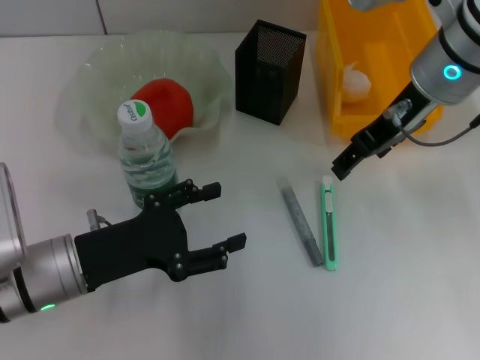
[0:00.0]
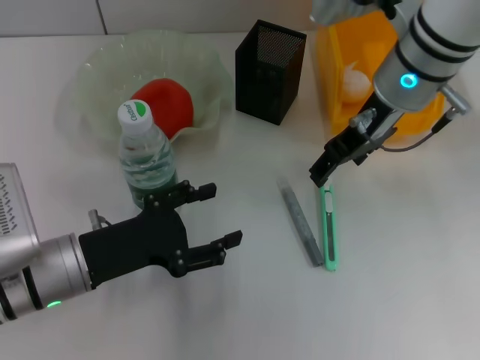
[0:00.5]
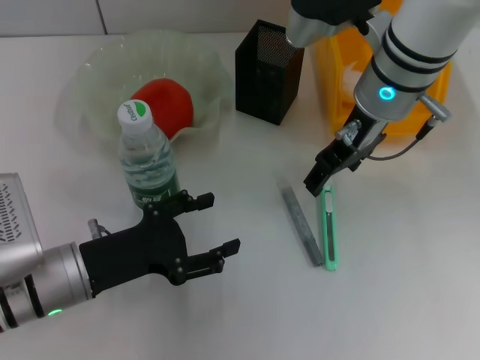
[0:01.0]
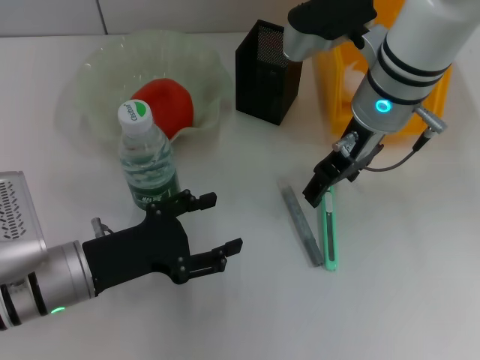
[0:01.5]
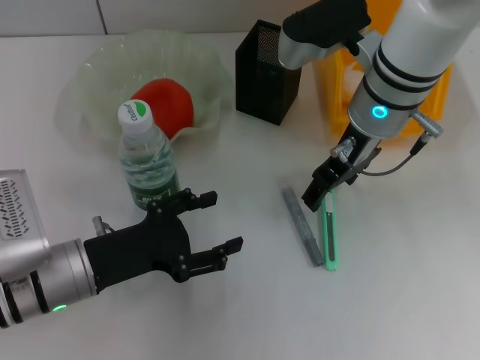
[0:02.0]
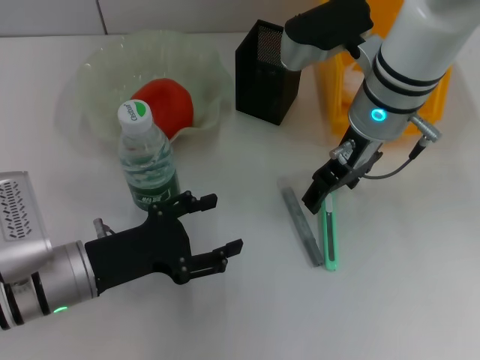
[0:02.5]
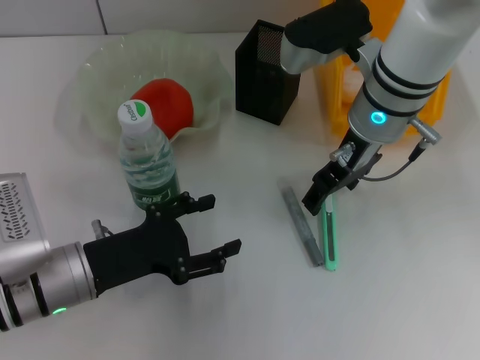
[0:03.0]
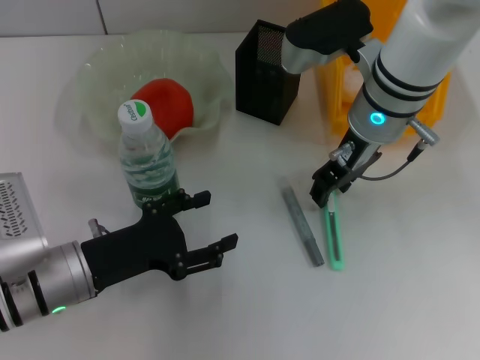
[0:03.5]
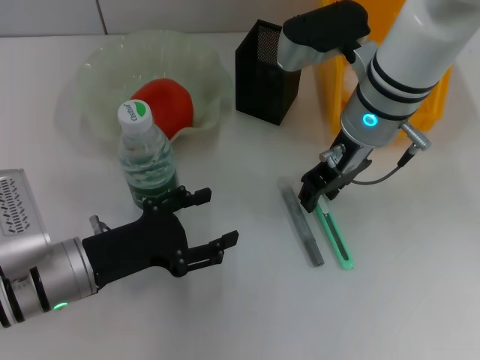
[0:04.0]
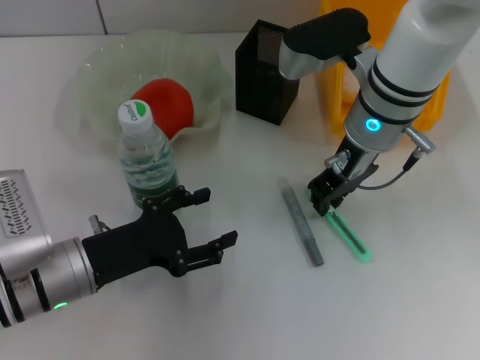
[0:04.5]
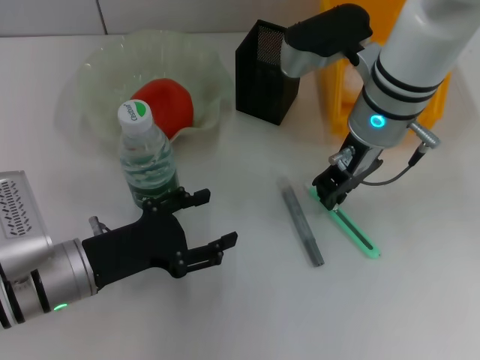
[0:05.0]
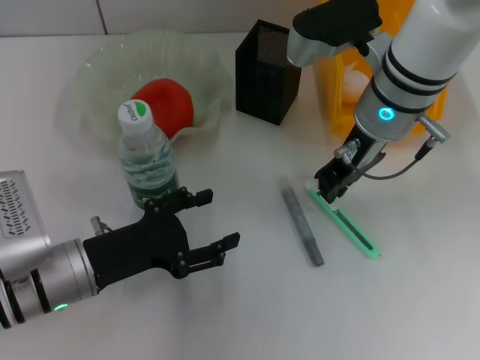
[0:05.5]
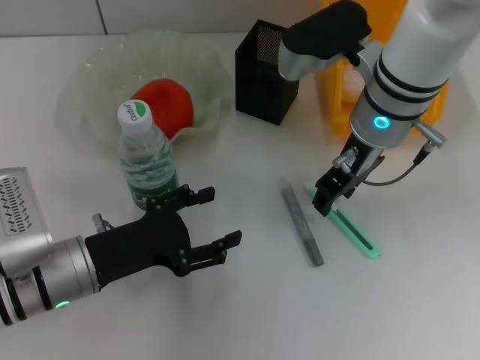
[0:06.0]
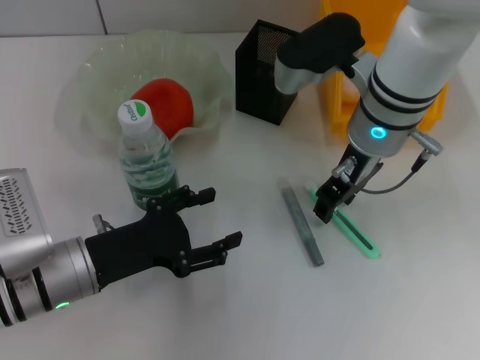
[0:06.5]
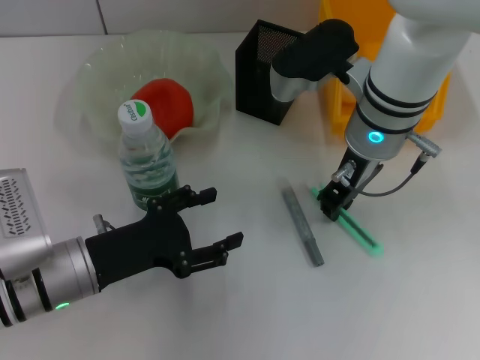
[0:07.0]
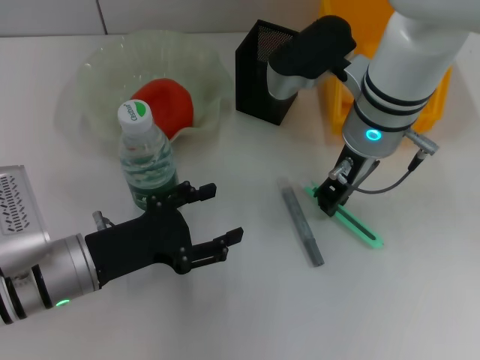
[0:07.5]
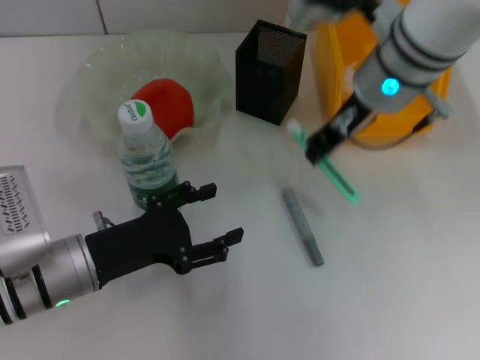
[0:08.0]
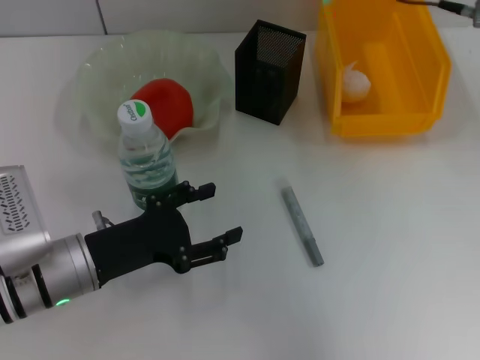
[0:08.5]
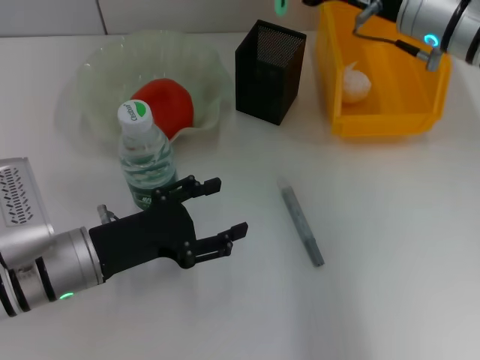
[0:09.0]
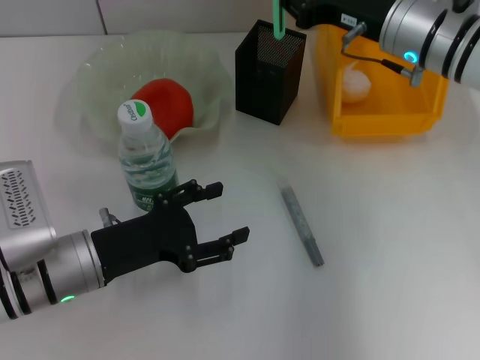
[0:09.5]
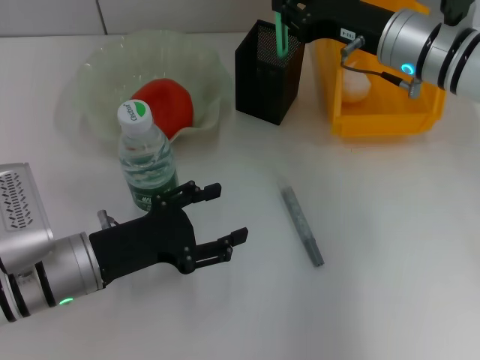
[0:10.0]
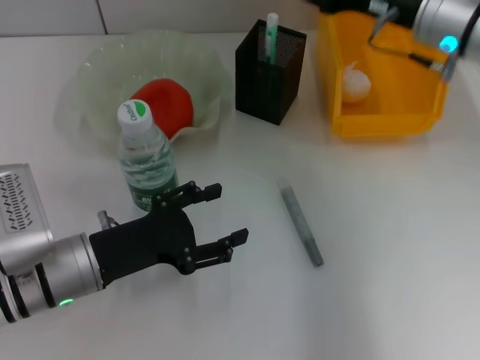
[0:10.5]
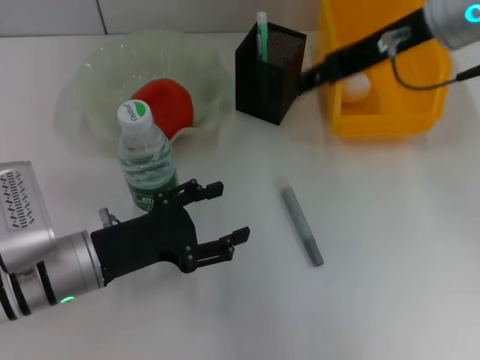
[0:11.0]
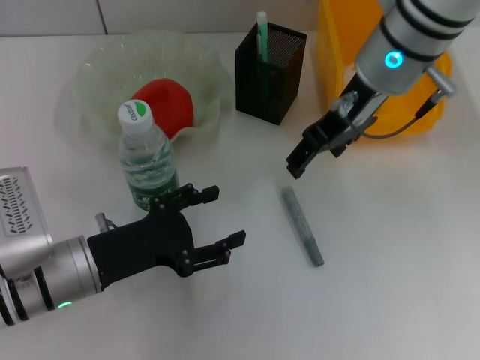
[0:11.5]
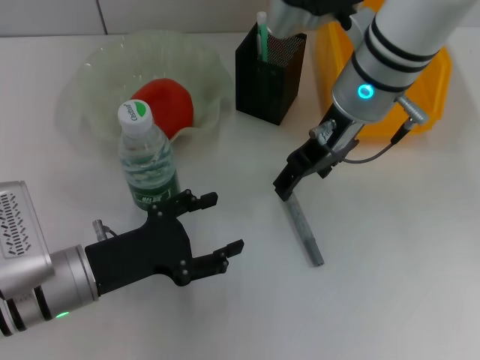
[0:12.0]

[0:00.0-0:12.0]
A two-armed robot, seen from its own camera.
Step, 0:00.0 to 0:07.0: Grab the blue utility knife with the right hand.
Step, 0:07.5 to 0:10.5: Place the blue utility knife into the pen holder with the right hand.
0:00.0 to 0:02.0: The right gripper moves approximately 5 cm.
0:02.0 to 0:04.0: The right gripper closes.
0:04.0 to 0:06.0: The right gripper closes, then reopens.
0:06.0 to 0:08.0: The grippers move only a little.
0:08.0 to 0:10.0: The right gripper is displaced to the right and downward by about 10 cm.
0:10.0 to 0:12.0: The right gripper shifts some 10 cm to the left, and opens its fingers.

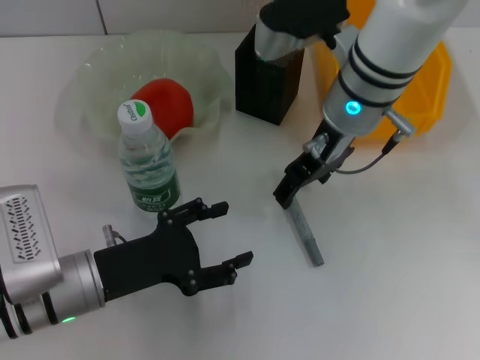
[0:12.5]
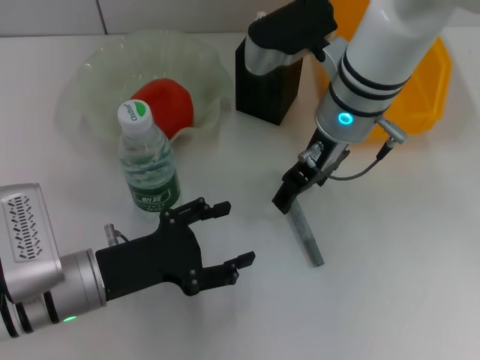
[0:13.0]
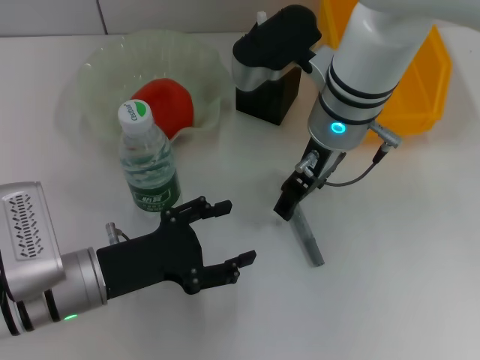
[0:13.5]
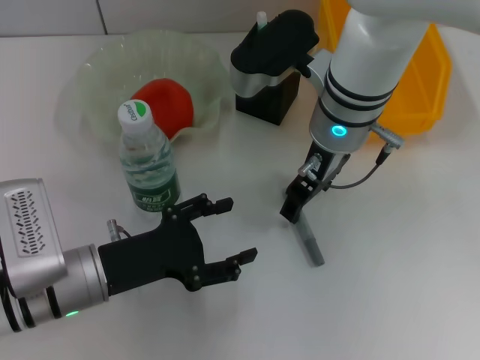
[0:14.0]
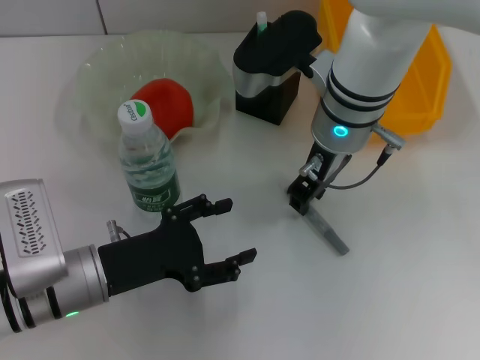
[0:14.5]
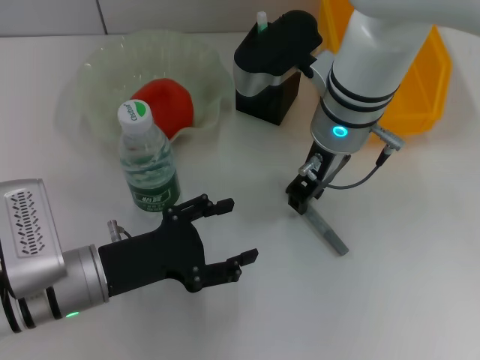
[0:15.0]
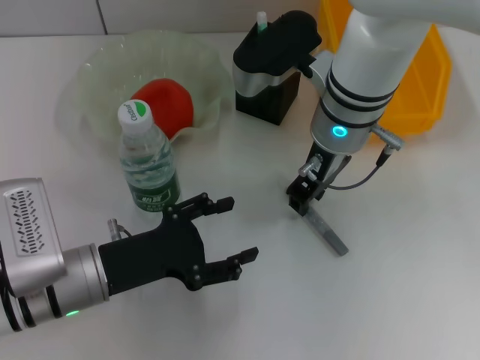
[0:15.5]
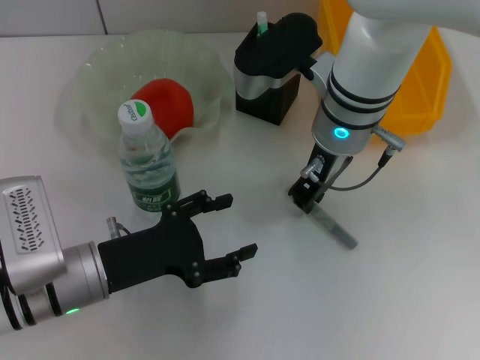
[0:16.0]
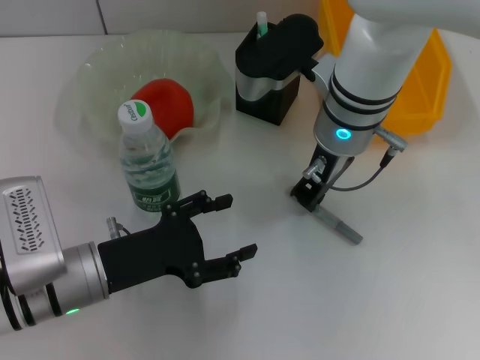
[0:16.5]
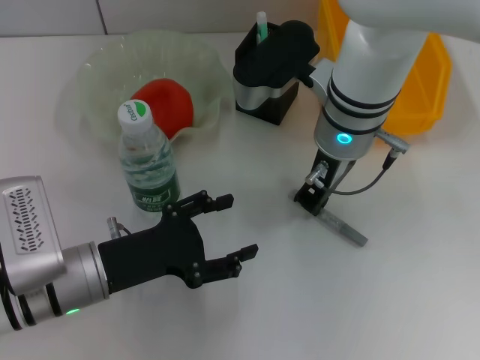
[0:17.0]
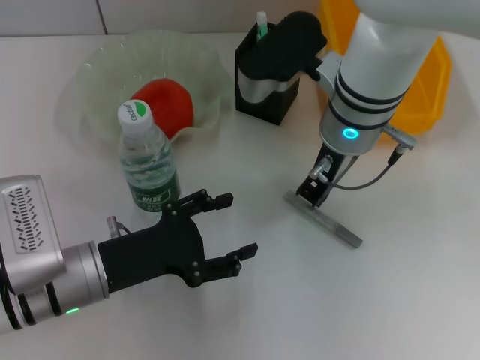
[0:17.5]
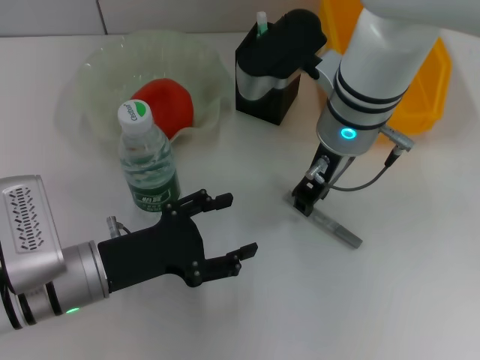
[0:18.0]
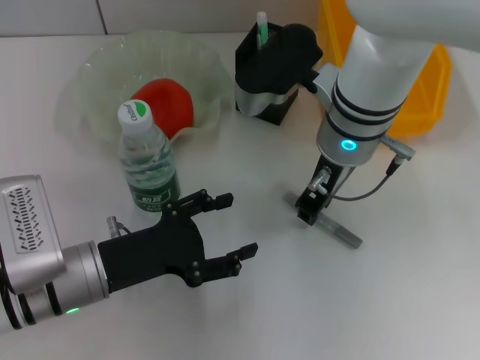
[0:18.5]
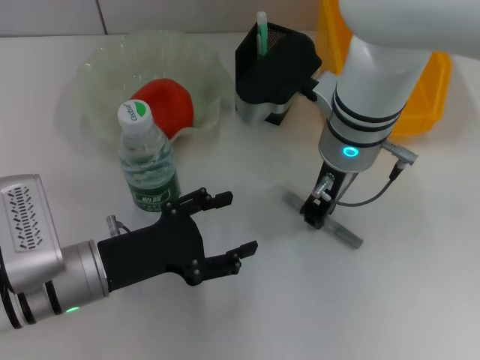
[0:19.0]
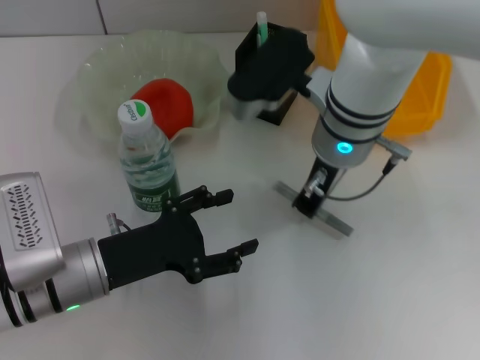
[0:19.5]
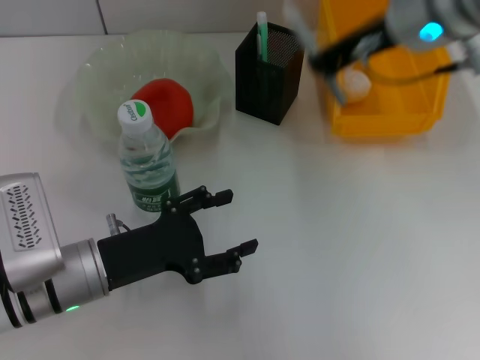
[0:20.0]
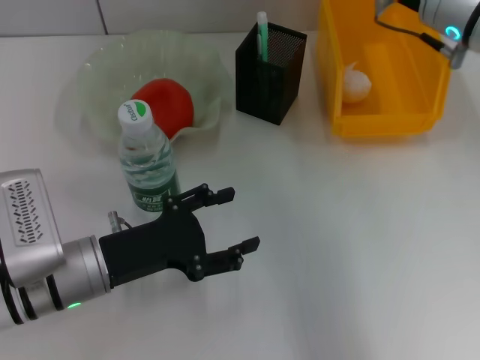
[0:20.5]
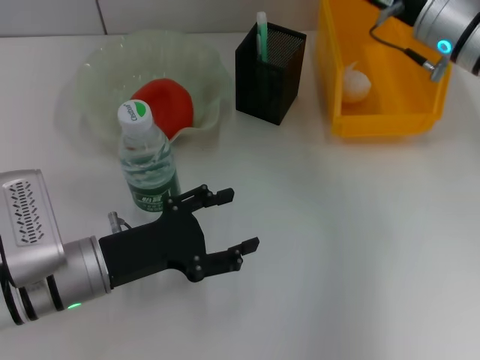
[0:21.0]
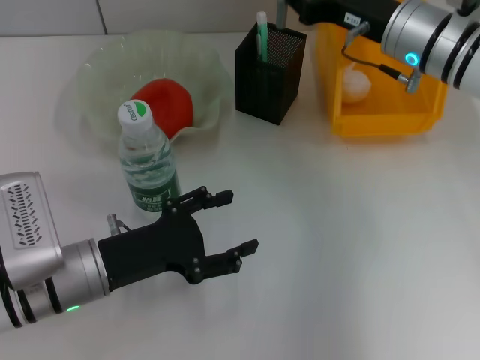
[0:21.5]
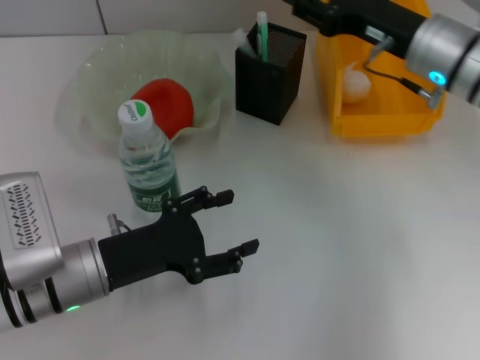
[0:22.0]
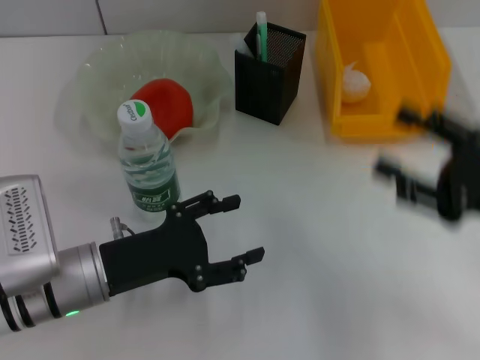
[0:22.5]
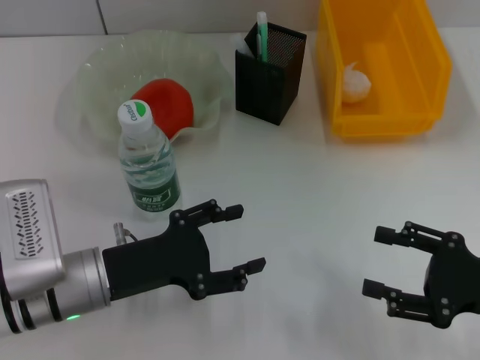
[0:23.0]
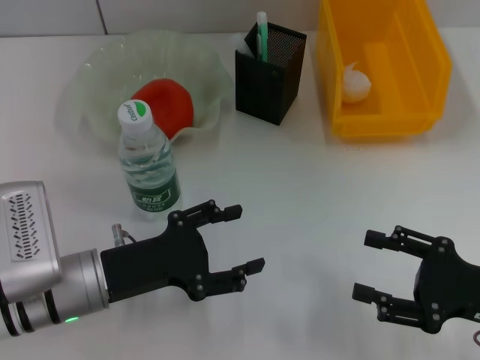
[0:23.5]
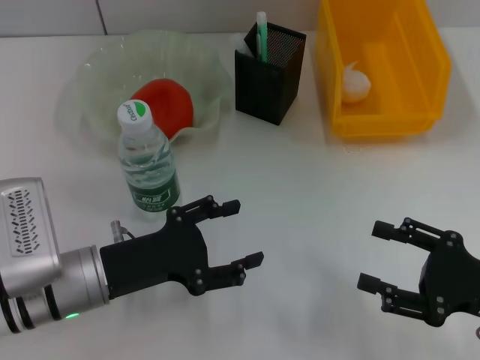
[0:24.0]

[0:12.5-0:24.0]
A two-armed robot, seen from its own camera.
Step, 0:12.5 to 0:17.0: Grab the gray glue with the right hand.
Step, 0:17.5 to 0:21.5: Place the gray glue into the pen holder with the right hand.
0:12.5 to 0:14.5: The right gripper closes its fingers.
0:14.5 to 0:16.5: The right gripper closes its fingers.
0:16.5 to 0:18.5: The two grippers keep their place.
0:18.5 to 0:20.0: The right gripper shifts some 10 cm upward and to the right.
0:20.0 to 0:22.0: The right gripper travels downward and to the right by some 15 cm.
0:22.0 to 0:24.0: The right gripper travels backward, to the right and downward by approximately 25 cm, and opens up.

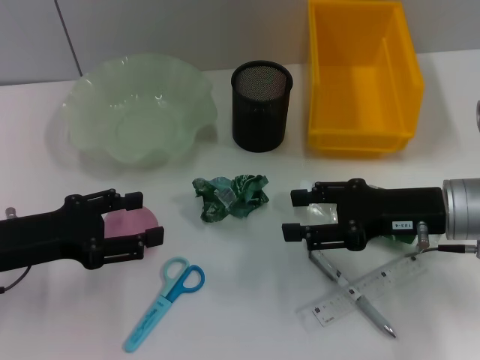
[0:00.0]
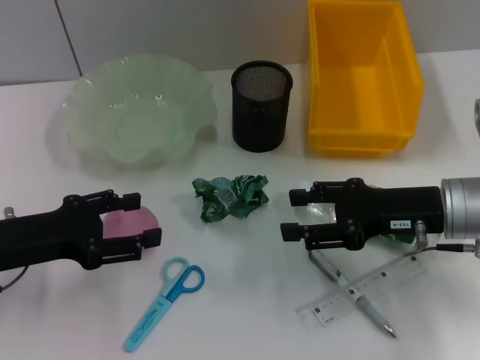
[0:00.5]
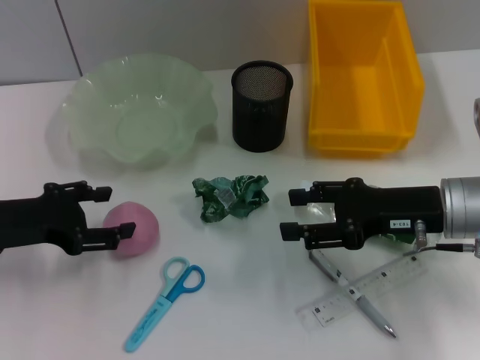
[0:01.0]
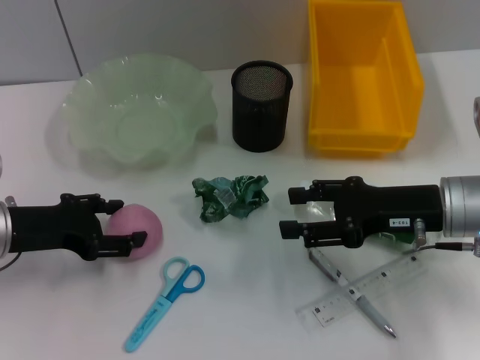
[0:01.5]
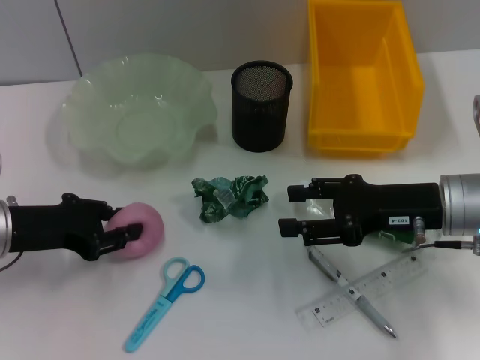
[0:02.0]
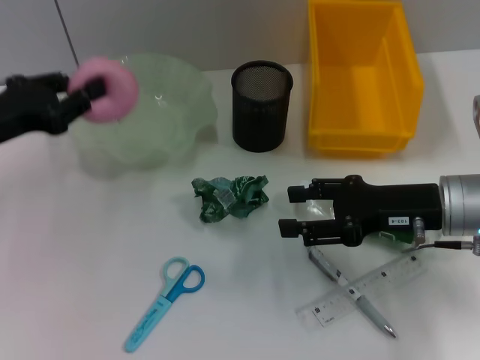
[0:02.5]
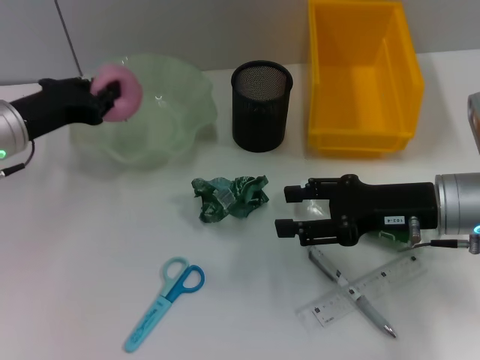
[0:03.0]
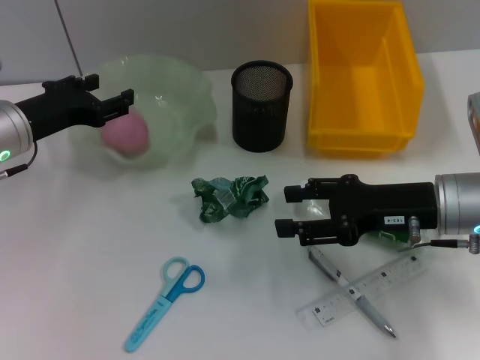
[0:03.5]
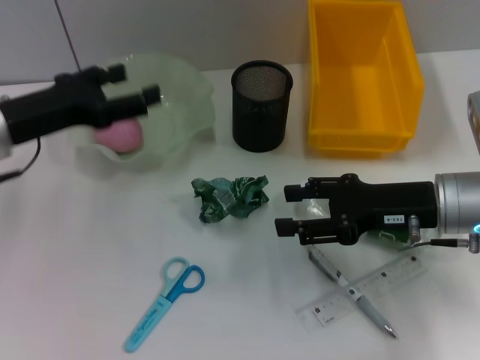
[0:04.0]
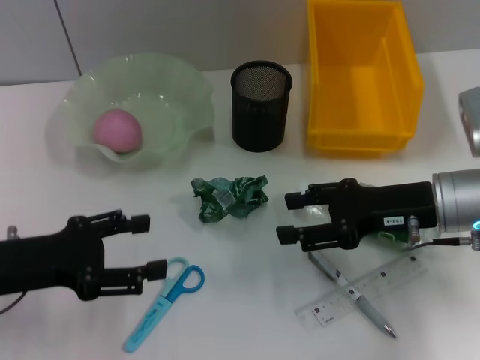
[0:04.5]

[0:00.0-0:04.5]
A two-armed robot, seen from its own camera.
Step, 0:00.0 to 0:01.5: Grab the peach with the left hand.
Step, 0:02.0 to 0:03.5: Place the peach into the fruit bowl with the left hand.
0:00.0 to 0:02.0: The left gripper closes its fingers.
0:02.0 to 0:04.5: The left gripper opens its fingers.
